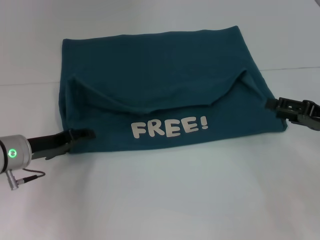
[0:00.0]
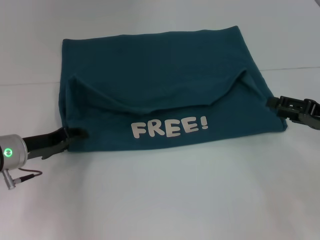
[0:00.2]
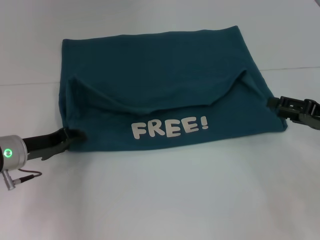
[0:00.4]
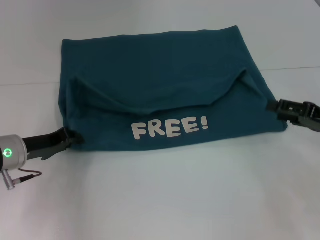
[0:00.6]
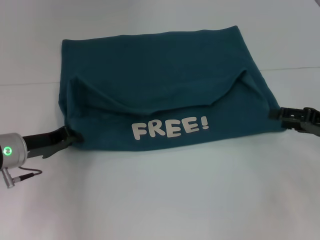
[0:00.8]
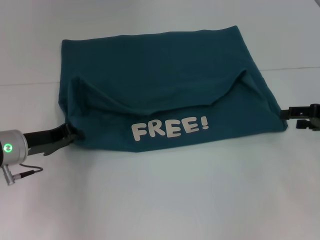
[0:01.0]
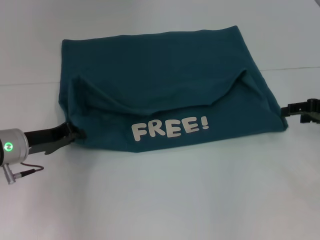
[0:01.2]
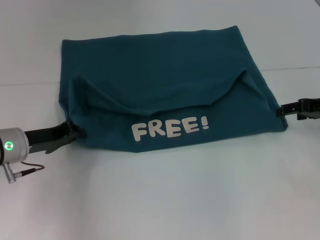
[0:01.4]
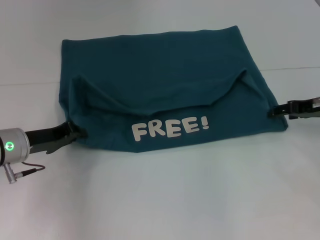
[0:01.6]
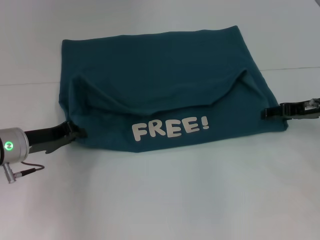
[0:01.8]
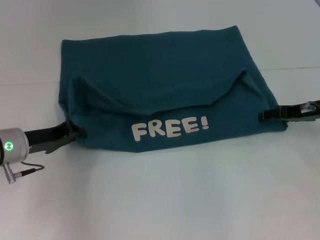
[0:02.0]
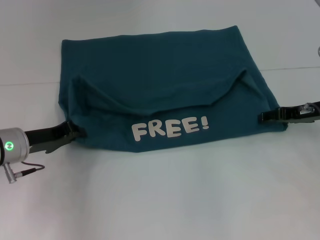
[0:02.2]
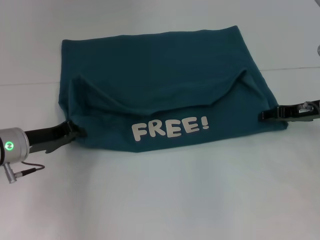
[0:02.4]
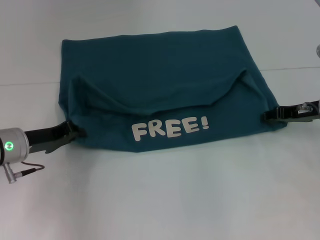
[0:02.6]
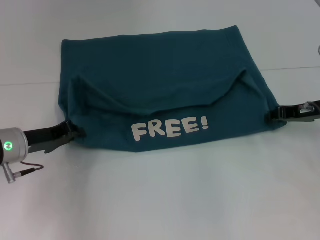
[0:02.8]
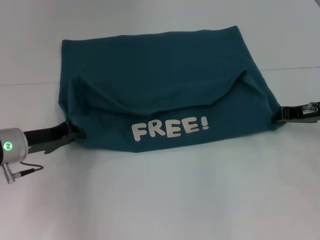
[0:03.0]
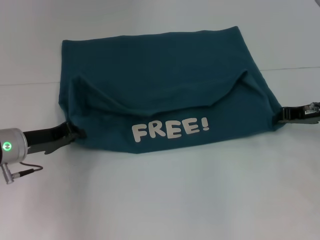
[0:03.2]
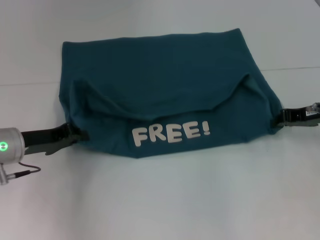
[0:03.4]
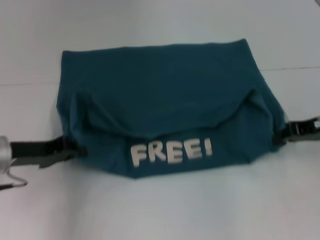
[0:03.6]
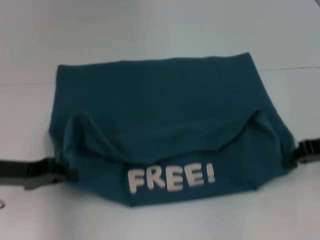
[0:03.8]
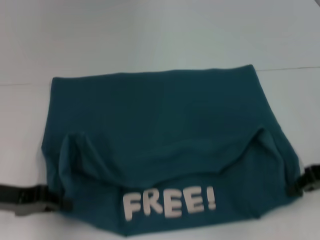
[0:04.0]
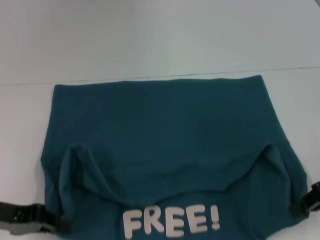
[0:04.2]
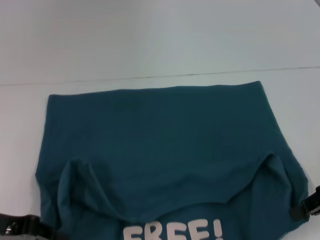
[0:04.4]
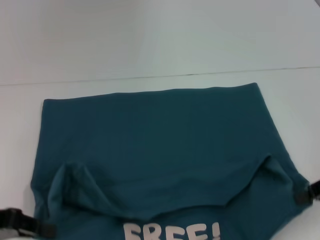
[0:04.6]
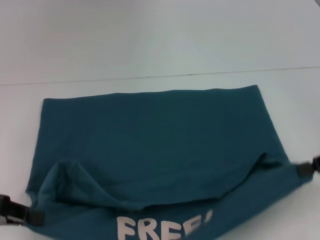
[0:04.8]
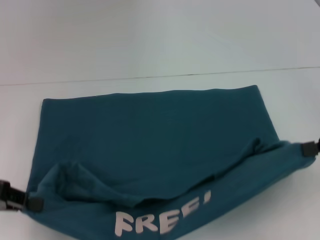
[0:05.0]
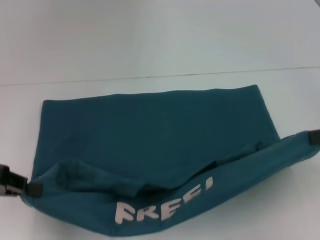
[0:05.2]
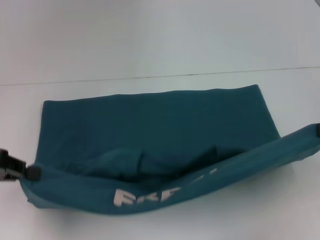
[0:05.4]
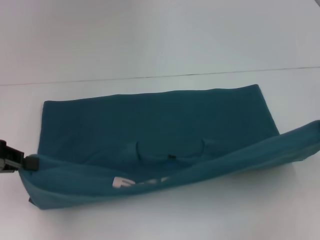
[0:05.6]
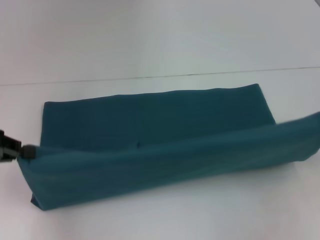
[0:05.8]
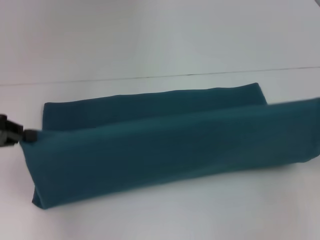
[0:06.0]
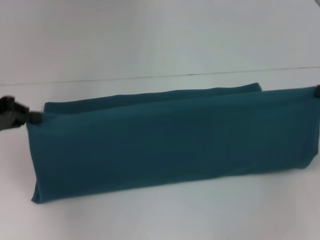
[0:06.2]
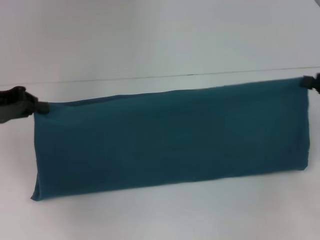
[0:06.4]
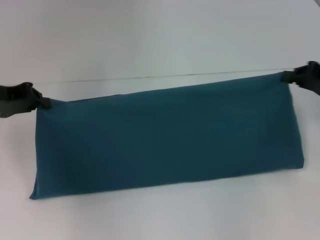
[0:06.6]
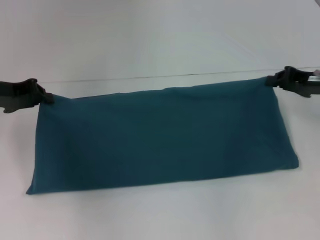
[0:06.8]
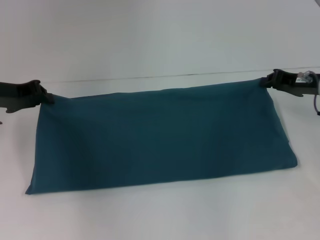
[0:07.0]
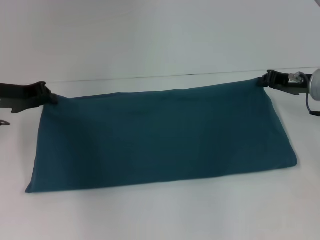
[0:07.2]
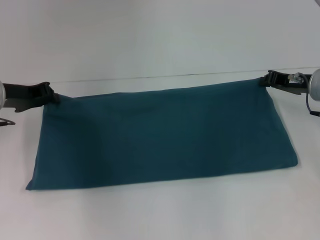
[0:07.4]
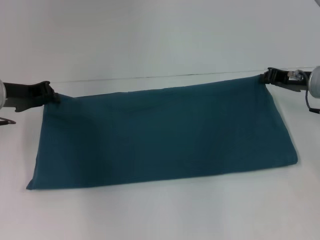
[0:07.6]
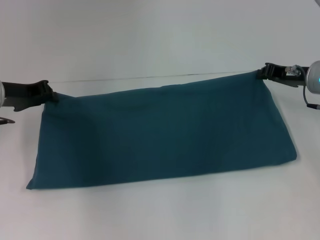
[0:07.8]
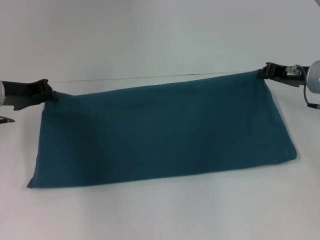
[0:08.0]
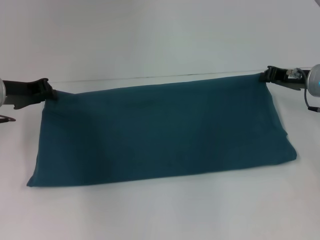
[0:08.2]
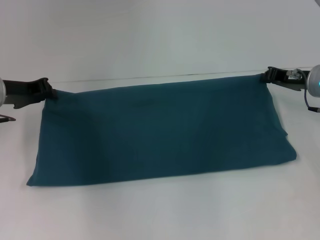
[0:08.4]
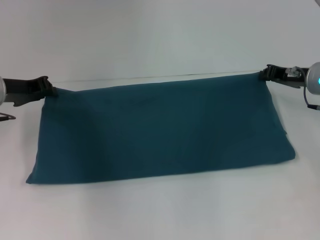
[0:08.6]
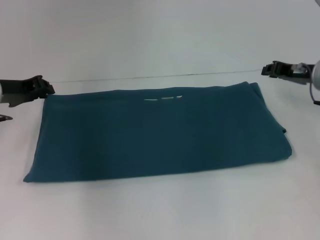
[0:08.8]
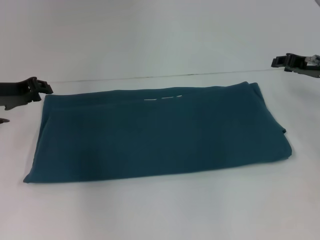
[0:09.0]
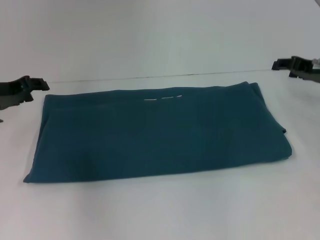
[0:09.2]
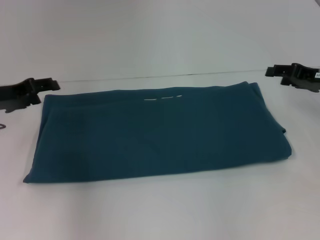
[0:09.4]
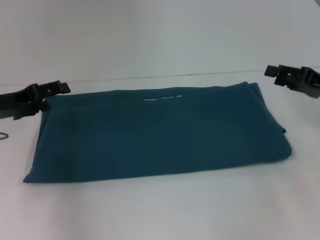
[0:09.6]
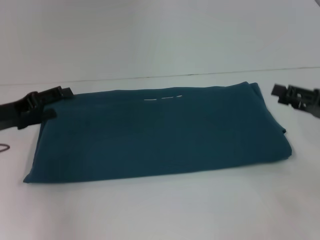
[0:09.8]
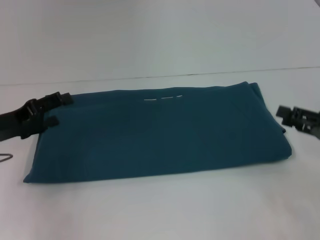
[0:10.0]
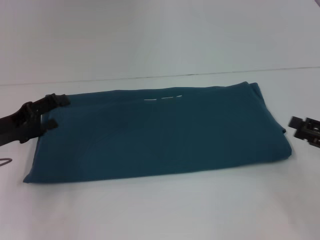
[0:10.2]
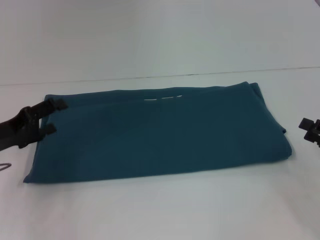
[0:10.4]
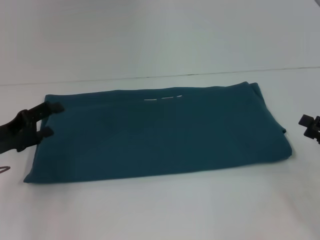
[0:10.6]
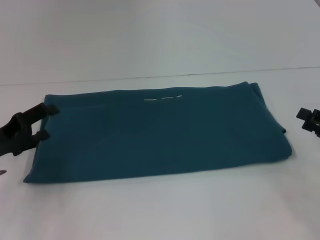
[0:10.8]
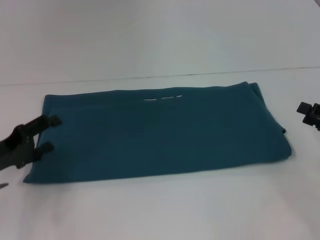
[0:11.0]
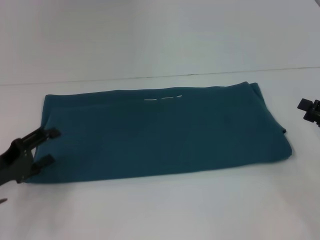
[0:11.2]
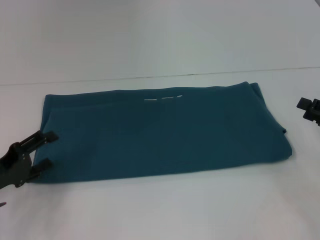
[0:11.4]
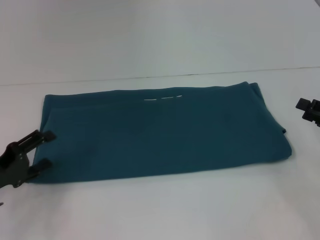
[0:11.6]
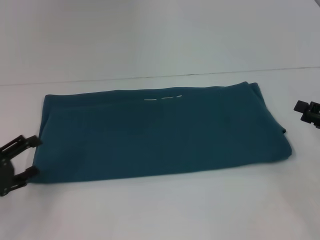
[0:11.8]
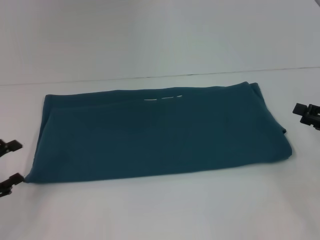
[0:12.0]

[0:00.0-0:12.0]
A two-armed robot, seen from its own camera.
Step, 0:00.0 to 0:04.2: Pull the clothes with your left hand.
Step, 0:00.0 to 0:04.2: Pull the clothes with your right hand.
Step, 0:04.4 to 0:09.0: Fold the clothes to the right.
0:00.0 to 0:01.6: The left gripper closes. The right gripper shifts about 10 cm forward.
0:01.6 to 0:03.0: The right gripper closes.
0:03.0 to 0:04.4: Both grippers travel together backward, approximately 10 cm.
0:04.4 to 0:06.0: The right gripper is displaced to the right by about 5 cm. The left gripper heads forward and upward, covering approximately 10 cm.
0:06.0 to 0:07.6: The left gripper moves forward and to the right, about 10 cm. The right gripper moves forward, to the left and downward, about 20 cm.
0:07.6 to 0:09.0: The grippers make only small movements.
0:09.0 to 0:10.4: The right gripper heads backward, covering about 15 cm, and opens up, while the left gripper moves backward, about 10 cm, and opens.
0:10.4 to 0:12.0: The left gripper shifts approximately 10 cm backward and to the left.

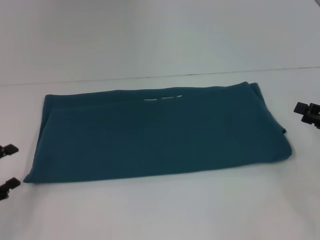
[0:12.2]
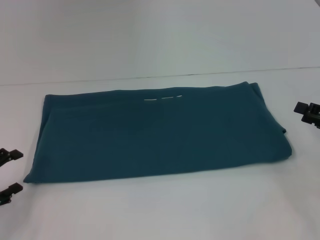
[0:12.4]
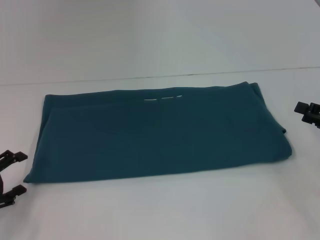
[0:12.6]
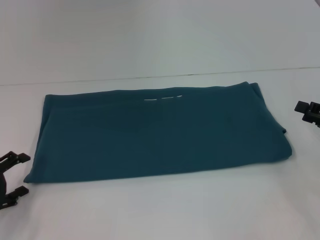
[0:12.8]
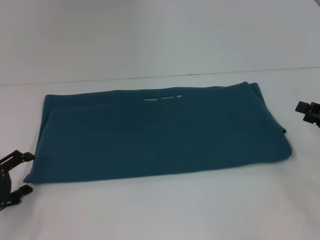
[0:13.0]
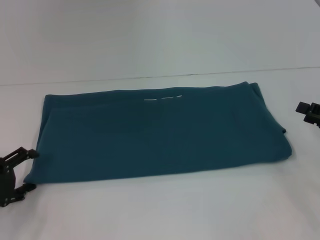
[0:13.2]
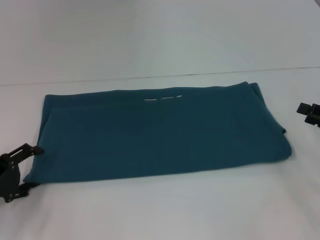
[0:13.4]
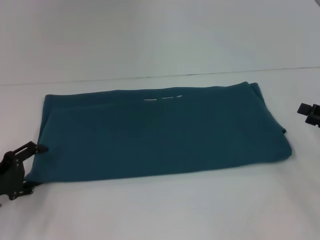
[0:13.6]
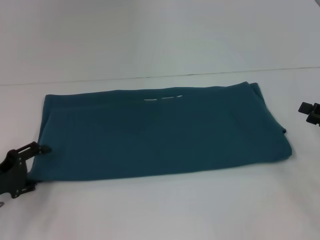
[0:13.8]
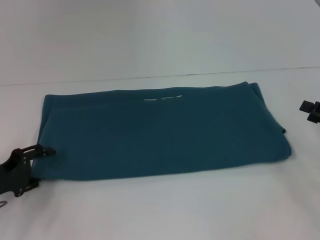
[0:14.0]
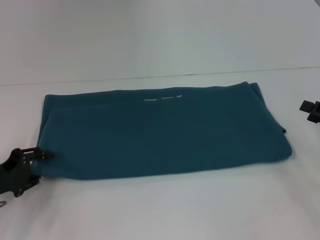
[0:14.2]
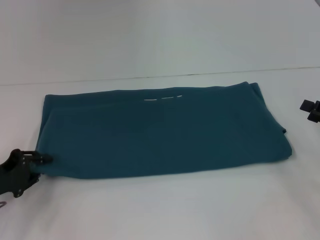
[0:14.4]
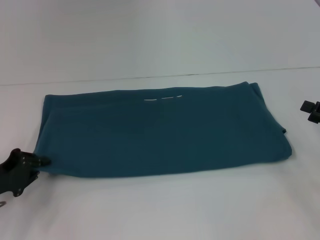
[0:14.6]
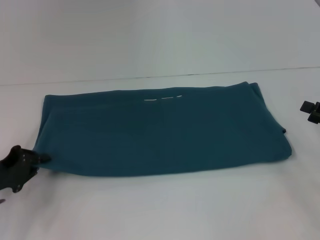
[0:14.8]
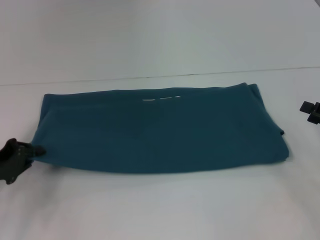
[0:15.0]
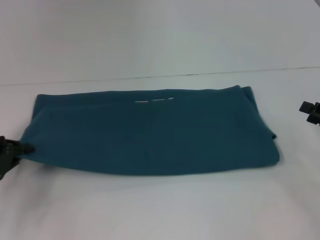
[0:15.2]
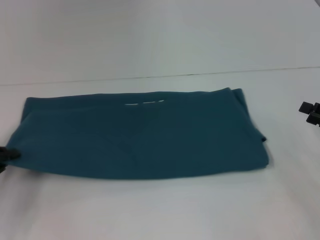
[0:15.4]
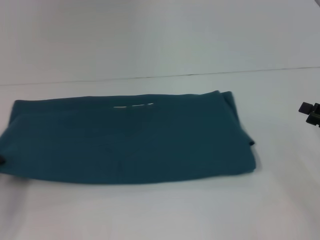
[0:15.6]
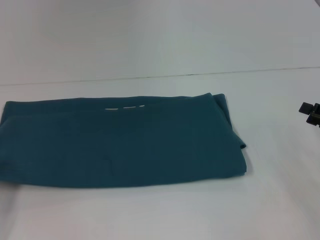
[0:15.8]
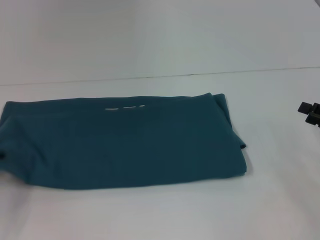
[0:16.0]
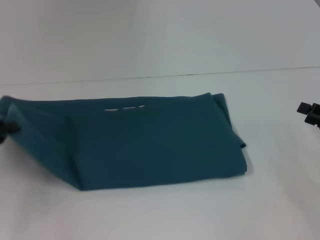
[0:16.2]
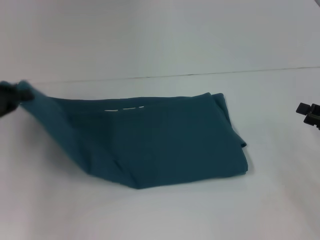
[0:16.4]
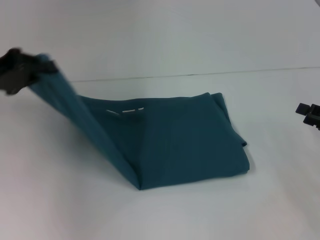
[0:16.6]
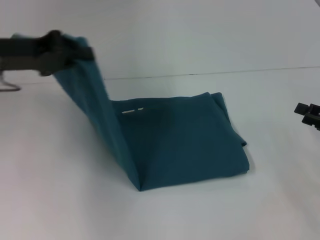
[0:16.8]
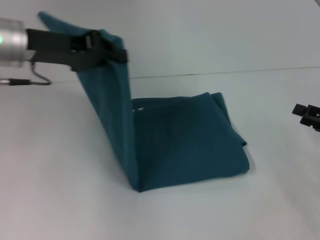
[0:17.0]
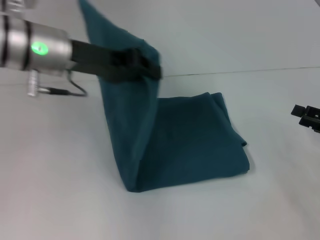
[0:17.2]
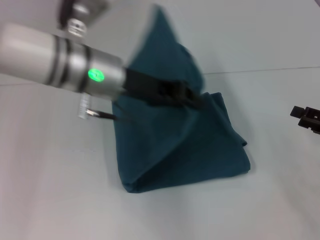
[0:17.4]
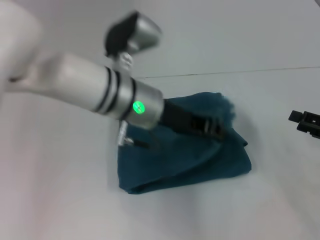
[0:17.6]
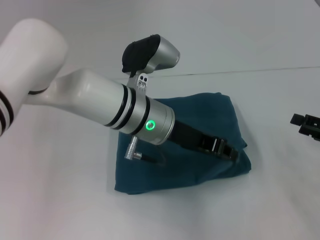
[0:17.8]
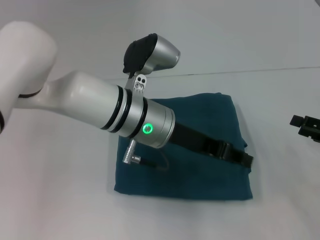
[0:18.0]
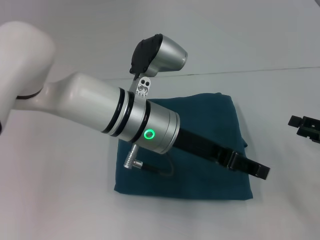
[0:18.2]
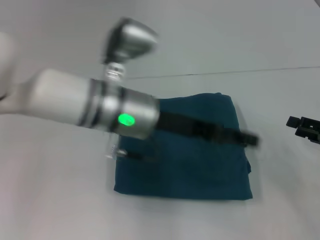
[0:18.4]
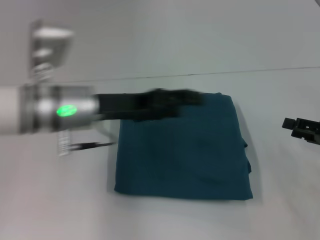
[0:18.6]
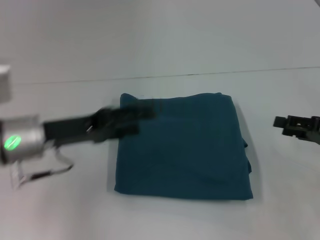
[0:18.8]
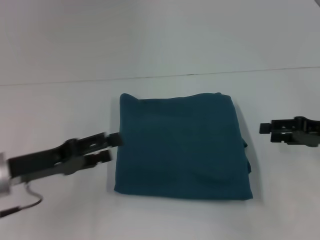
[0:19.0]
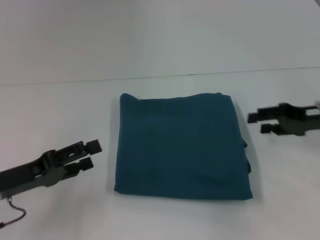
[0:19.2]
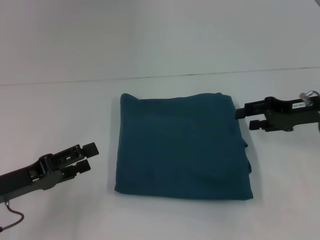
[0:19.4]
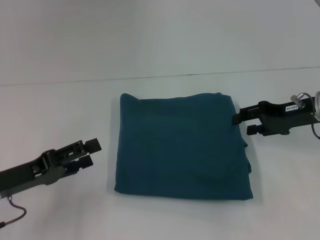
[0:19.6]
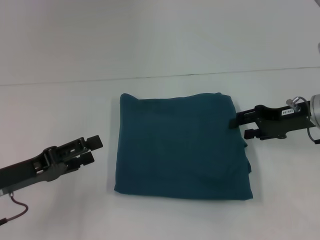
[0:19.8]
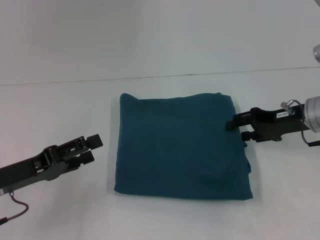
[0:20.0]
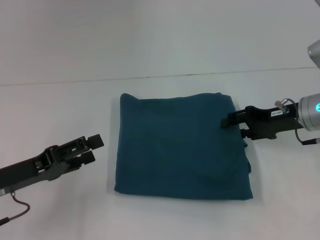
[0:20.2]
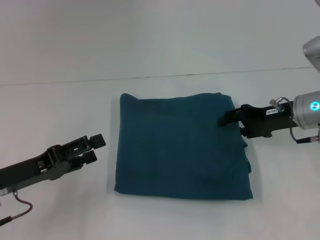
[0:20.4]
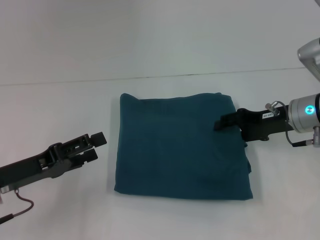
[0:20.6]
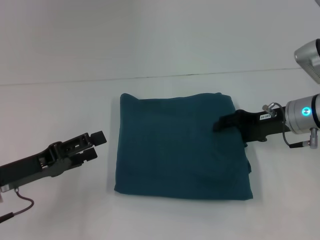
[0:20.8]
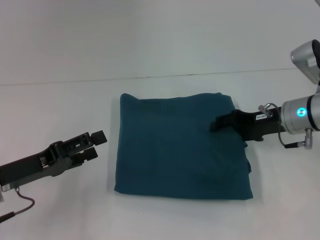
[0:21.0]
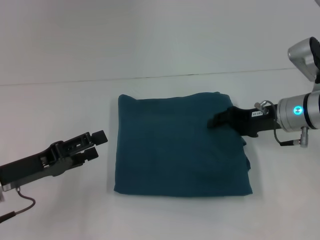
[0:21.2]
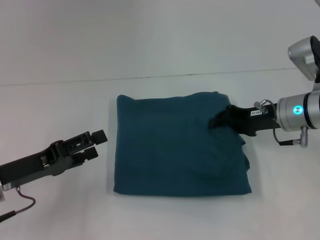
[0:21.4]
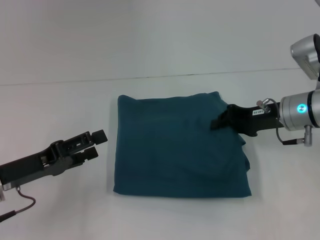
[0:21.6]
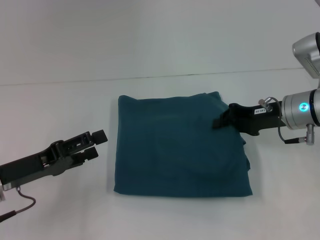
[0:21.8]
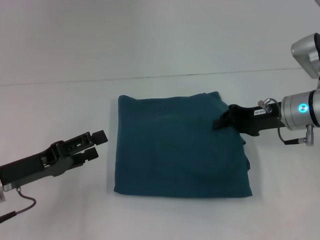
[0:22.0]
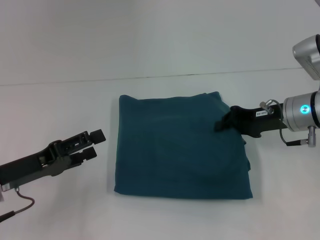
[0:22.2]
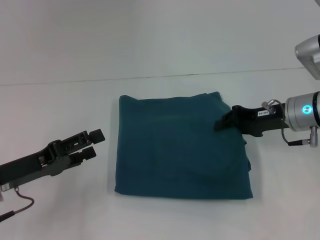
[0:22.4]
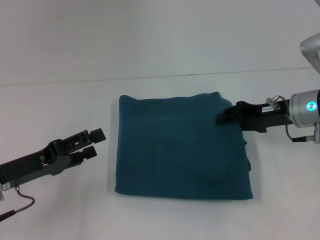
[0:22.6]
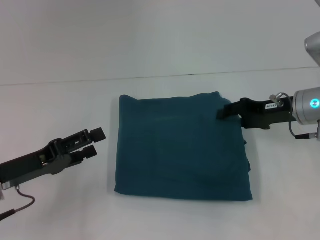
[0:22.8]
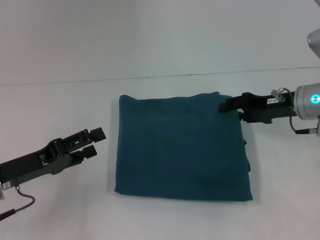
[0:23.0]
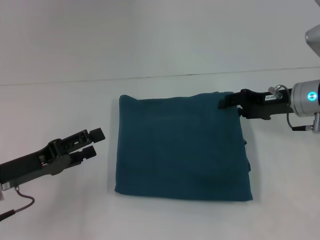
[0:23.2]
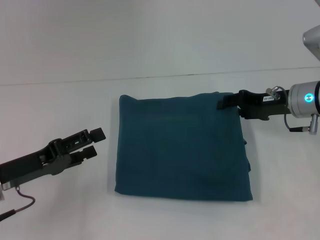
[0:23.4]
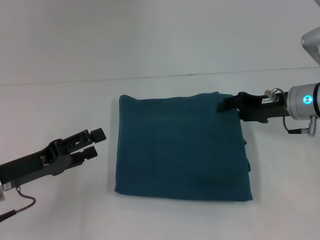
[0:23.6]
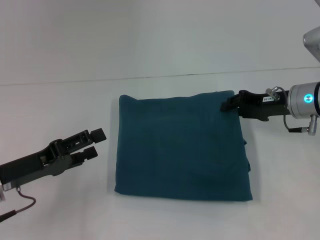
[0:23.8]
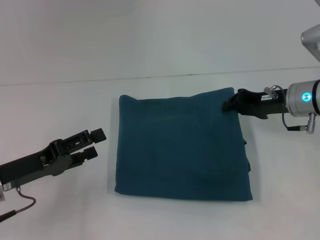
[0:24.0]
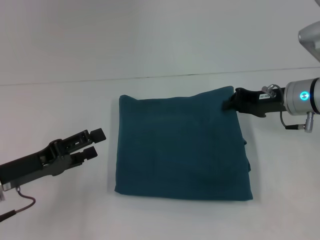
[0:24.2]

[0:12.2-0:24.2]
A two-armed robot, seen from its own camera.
Step, 0:12.2 to 0:18.0: Fold the clothes to the left.
0:12.2 to 0:13.8: The left gripper shifts by roughly 5 cm.
0:13.8 to 0:15.2: The left gripper closes its fingers.
0:15.2 to 0:16.6: The left gripper travels upward and forward by roughly 15 cm.
0:16.6 to 0:18.2: The left gripper is displaced to the right by about 25 cm, and opens up.
0:18.2 to 0:19.8: The left gripper moves to the left, some 25 cm, and opens, while the right gripper heads forward and to the left, covering approximately 15 cm.
0:19.8 to 0:21.2: The grippers move only a little.
0:21.2 to 0:22.6: The right gripper closes.
0:22.6 to 0:24.2: The right gripper opens and closes again.
